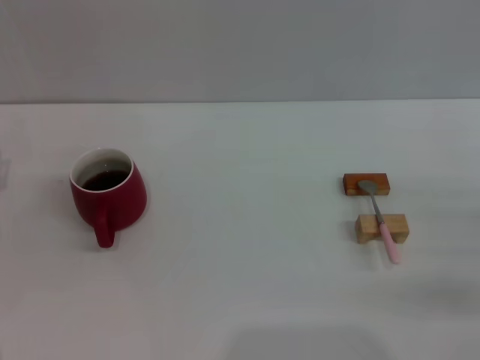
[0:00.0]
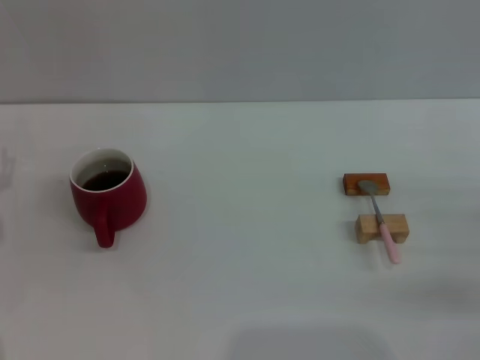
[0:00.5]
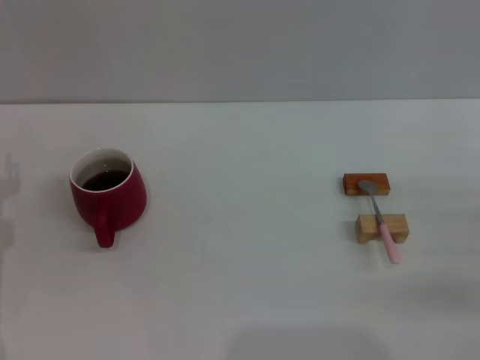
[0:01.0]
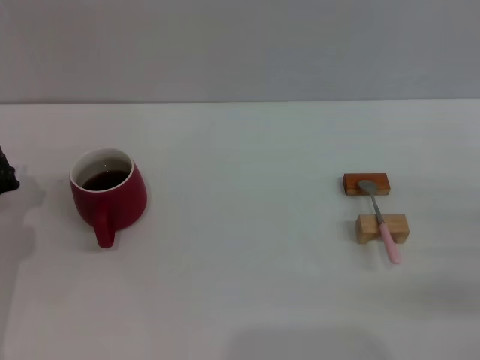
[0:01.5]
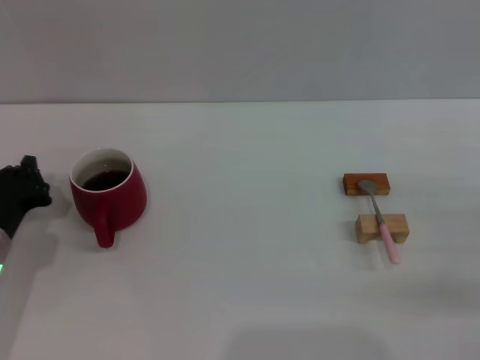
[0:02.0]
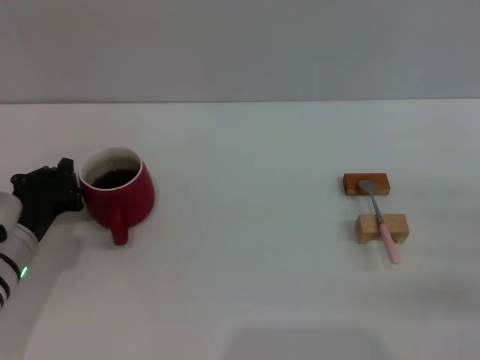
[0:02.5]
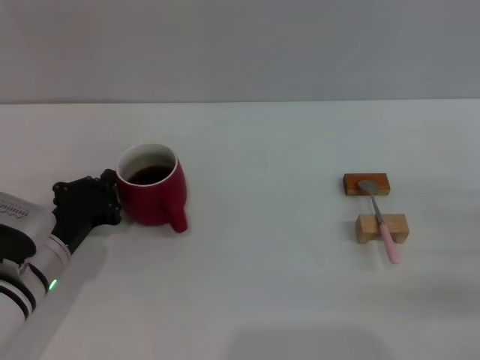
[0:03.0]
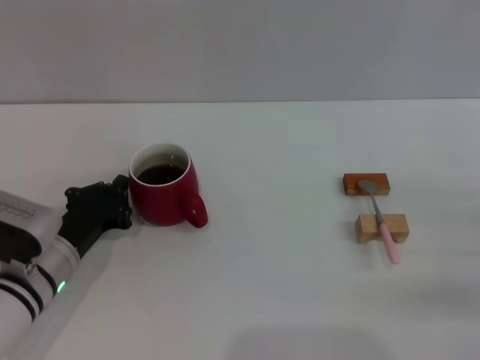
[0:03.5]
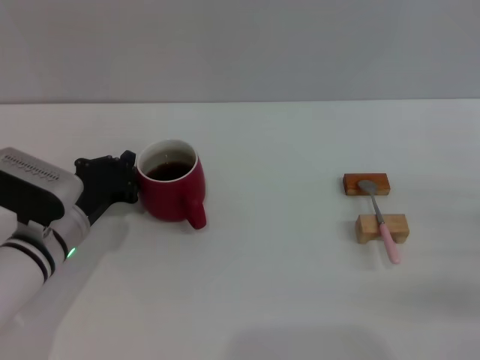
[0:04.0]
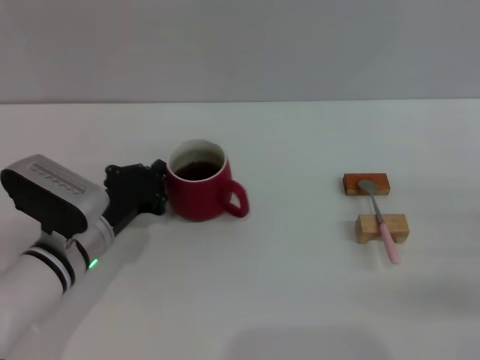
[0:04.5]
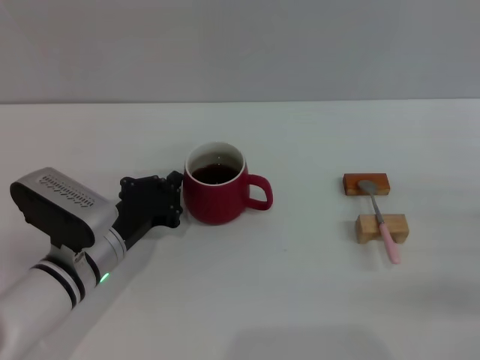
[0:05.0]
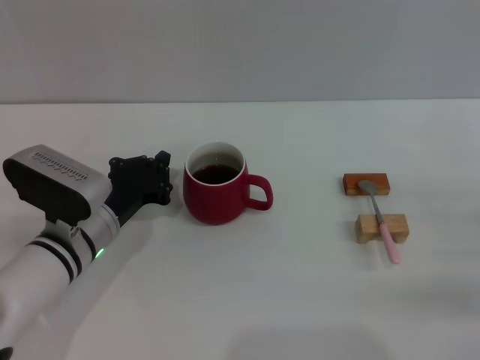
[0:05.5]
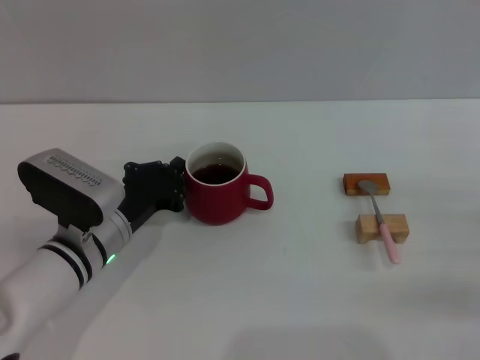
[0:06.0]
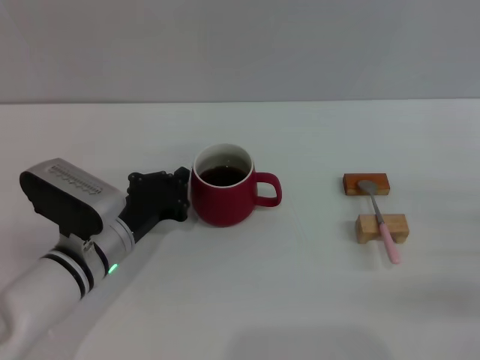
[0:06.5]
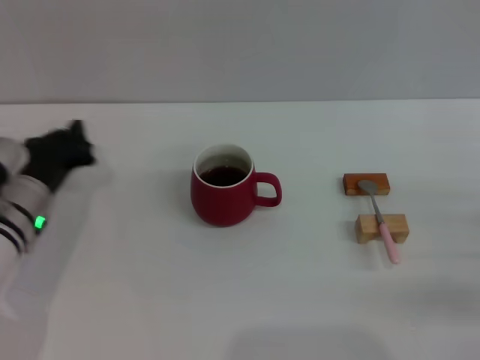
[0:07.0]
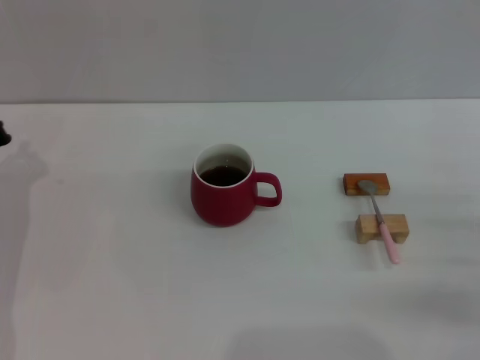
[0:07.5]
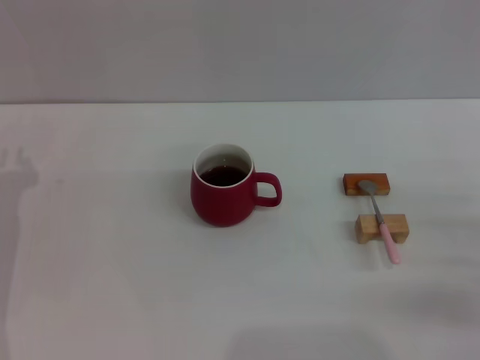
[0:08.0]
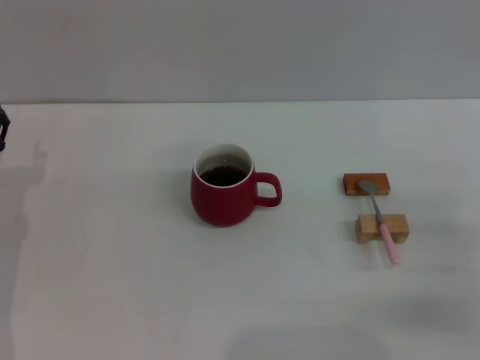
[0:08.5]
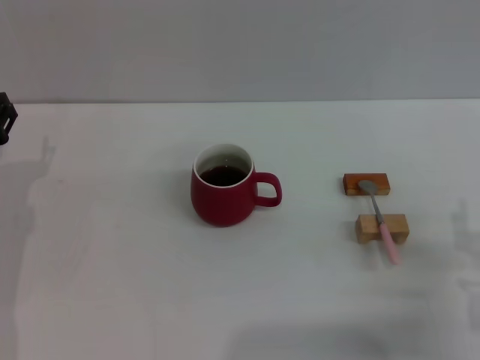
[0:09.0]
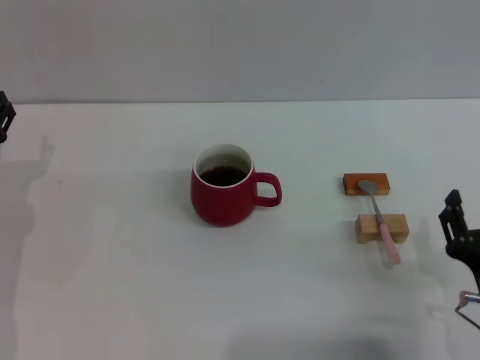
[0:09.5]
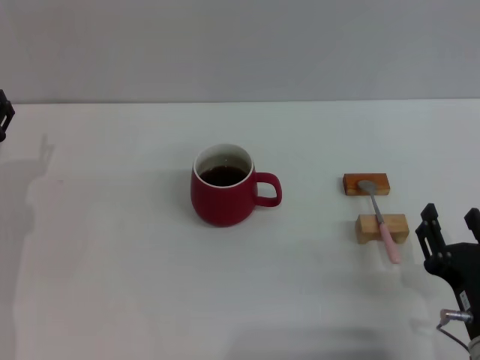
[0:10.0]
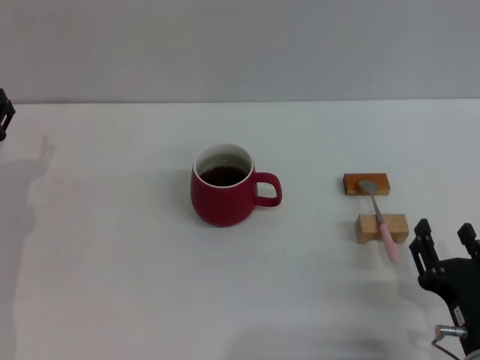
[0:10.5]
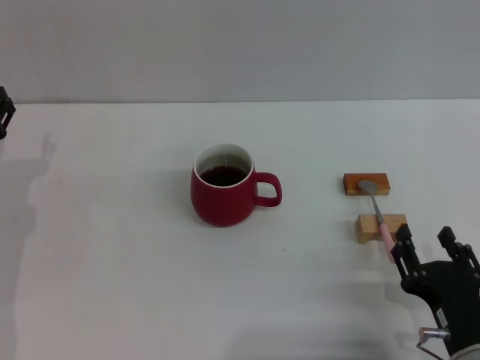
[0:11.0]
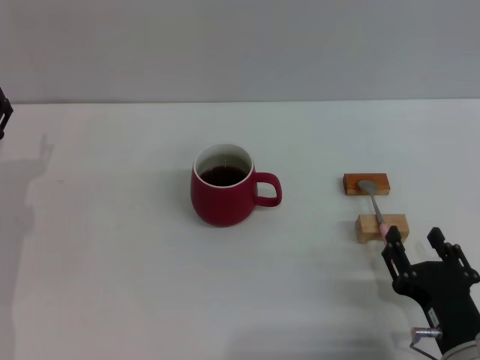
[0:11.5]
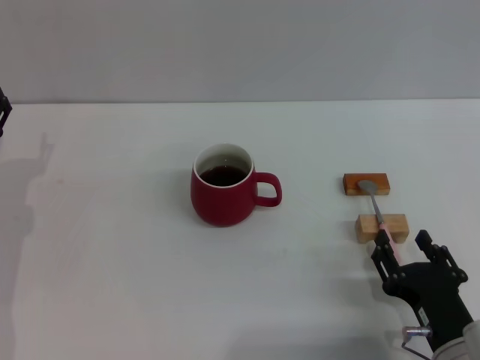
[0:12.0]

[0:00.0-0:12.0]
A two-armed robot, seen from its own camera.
Task of the whole recording: Move the red cup to the center, lift the pink spoon, stir it three times in the cup, and put the spoon into the cup.
Step, 0:00.0 to 0:06.5: Move the cup with coffee to the center of view with the left gripper.
0:00.0 to 0:02.0: The left gripper shifts by approximately 5 cm, and closes.
0:02.0 to 0:04.0: The left gripper heads to the right, covering some 5 cm.
0:04.0 to 0:06.0: The grippers make only small movements.
0:06.0 to 0:08.0: The left gripper moves to the left, approximately 15 cm.
0:08.0 to 0:10.0: The right gripper travels to the left and backward by about 15 cm.
0:10.0 to 0:12.0: The grippers stay close to where they were, moving slightly.

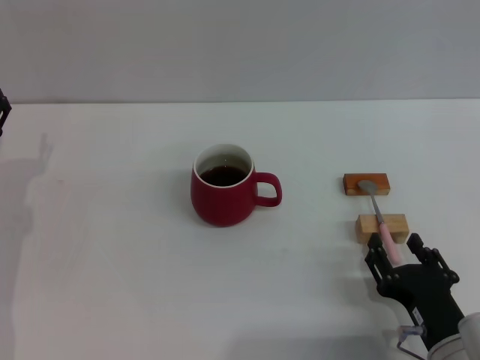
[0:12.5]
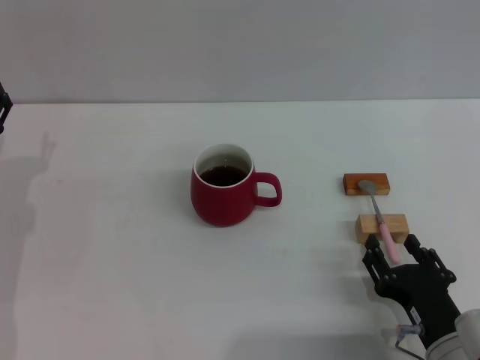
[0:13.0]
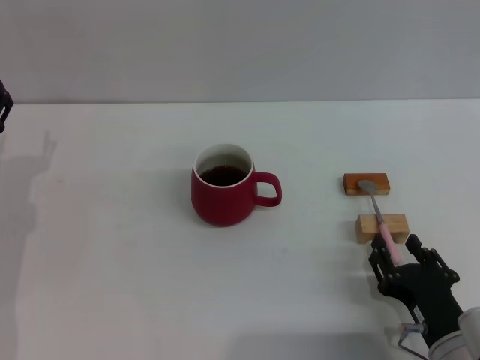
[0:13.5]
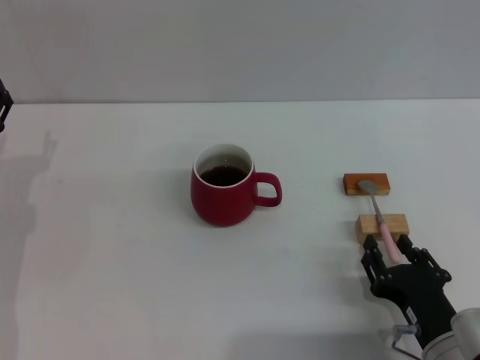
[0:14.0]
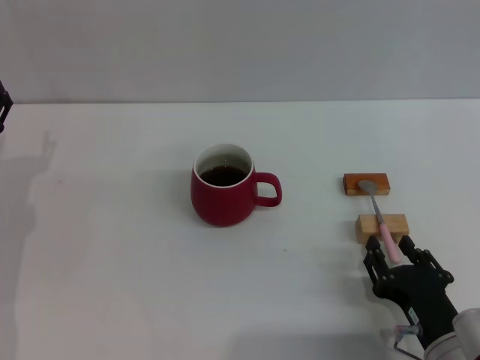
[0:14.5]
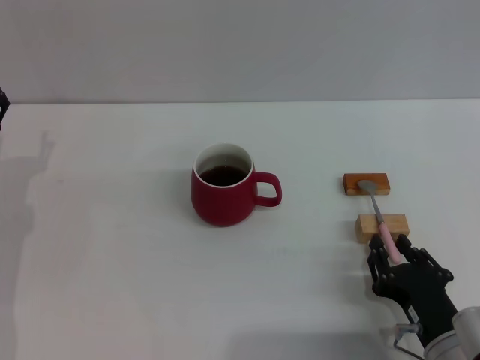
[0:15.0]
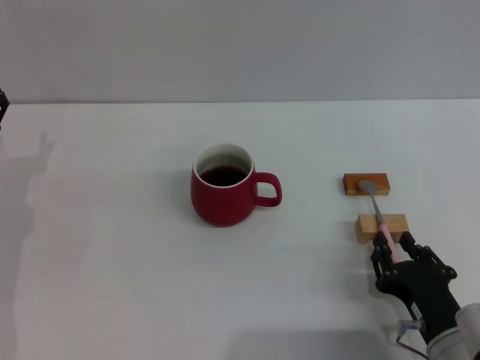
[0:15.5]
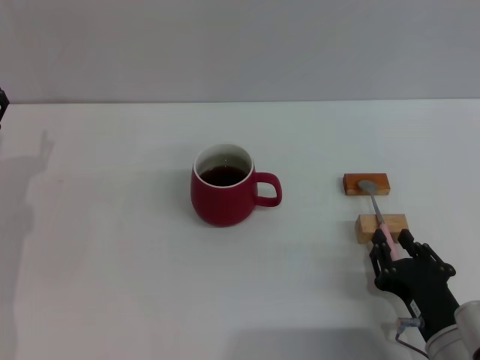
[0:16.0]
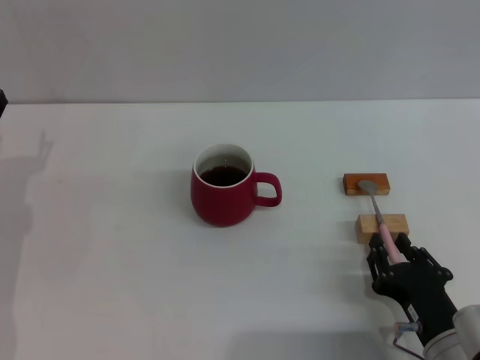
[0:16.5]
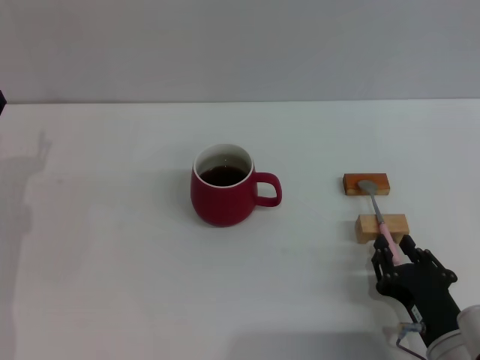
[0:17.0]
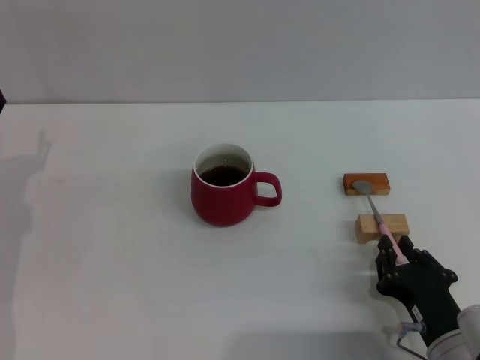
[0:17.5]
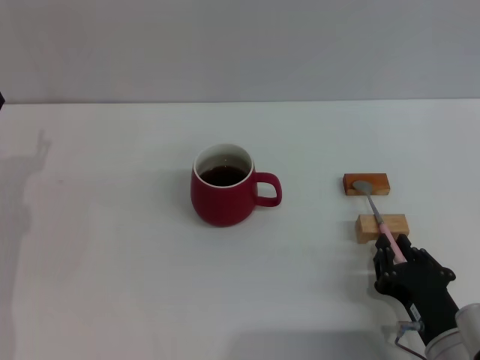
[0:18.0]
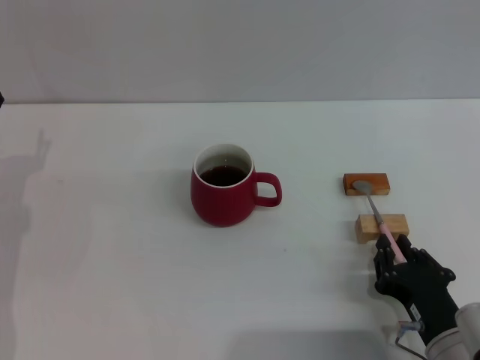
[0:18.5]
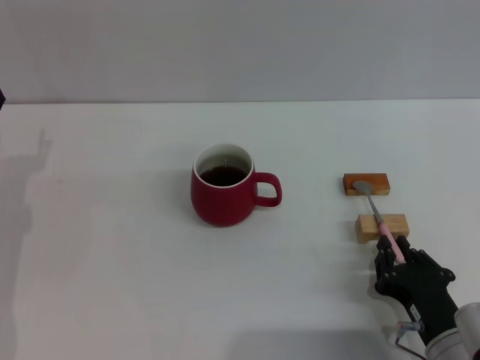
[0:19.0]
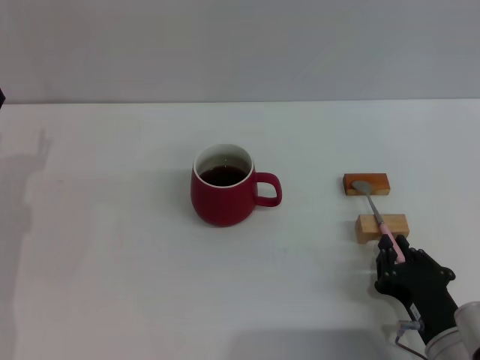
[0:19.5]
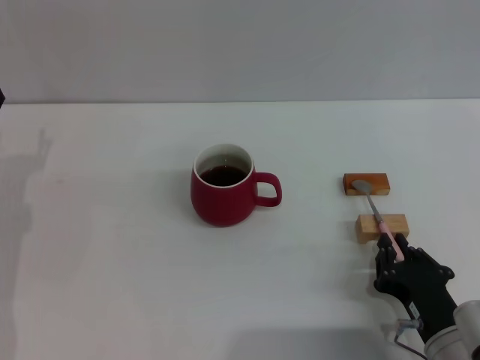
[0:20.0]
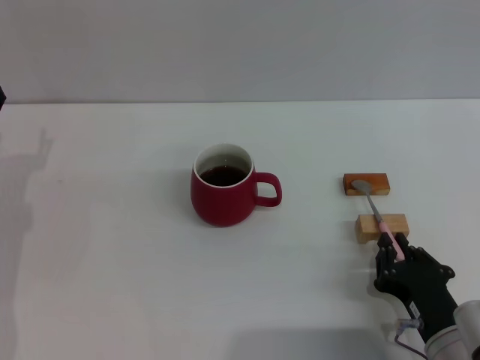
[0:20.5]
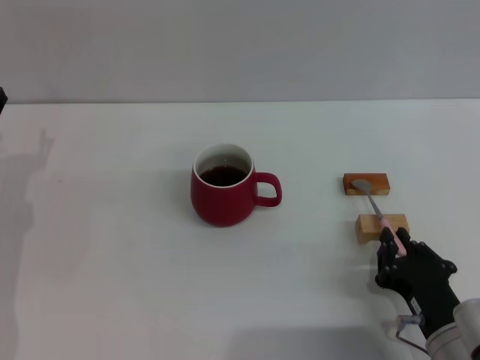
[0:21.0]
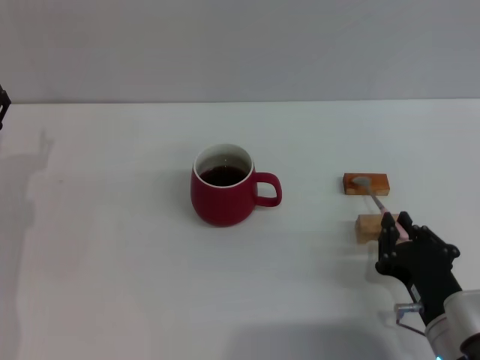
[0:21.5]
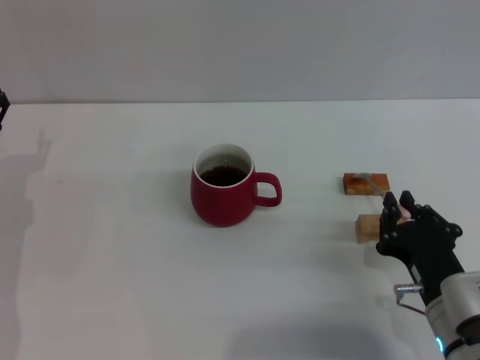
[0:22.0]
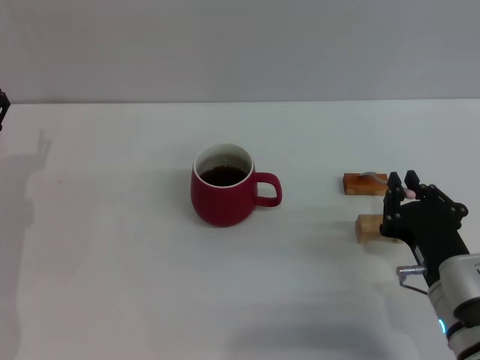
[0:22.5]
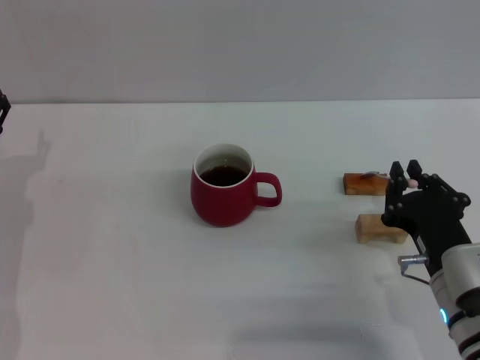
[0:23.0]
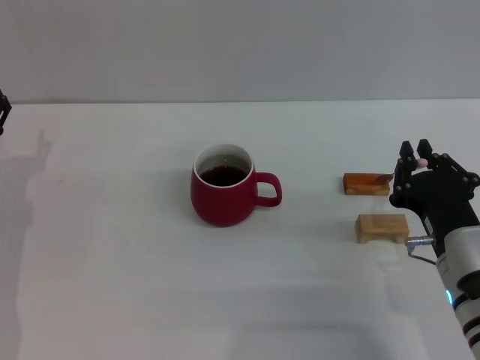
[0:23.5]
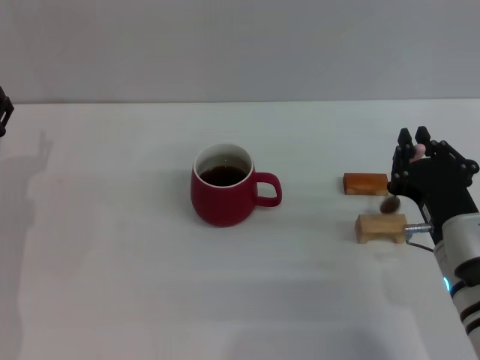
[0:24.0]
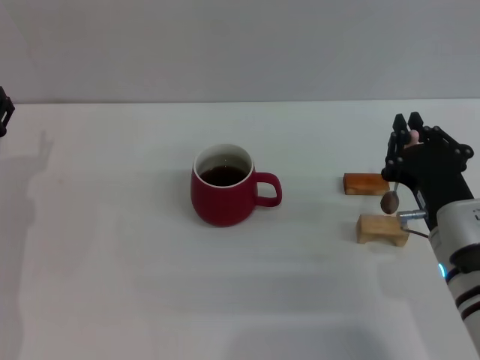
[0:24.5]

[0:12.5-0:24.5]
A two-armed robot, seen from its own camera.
Task of the whole recording: Move the red cup to the center, lift the pink spoon, stir it three times in the cup, and put the spoon into the cup.
0:12.5 to 0:20.5: Neither gripper changes place.
0:20.5 to 0:22.5: The right gripper changes place by approximately 5 cm.
0:22.5 to 0:24.5: The grippers move only a little.

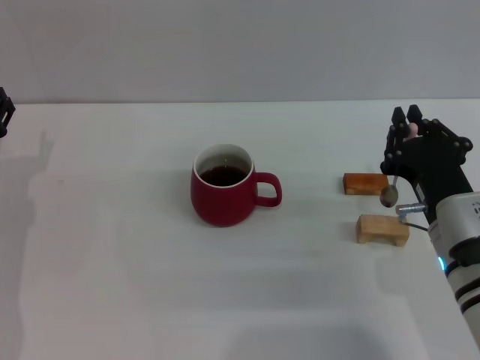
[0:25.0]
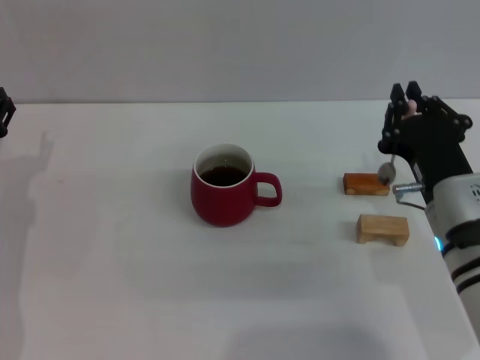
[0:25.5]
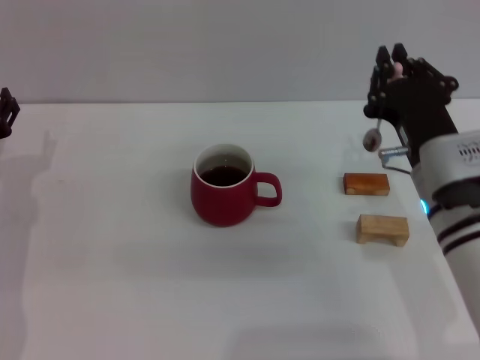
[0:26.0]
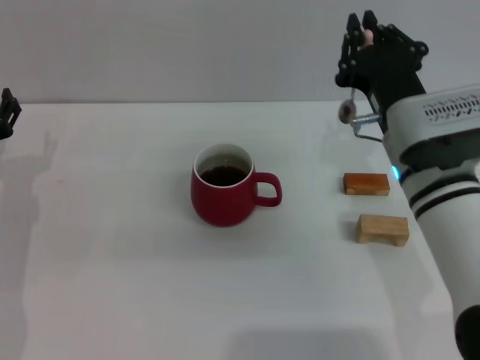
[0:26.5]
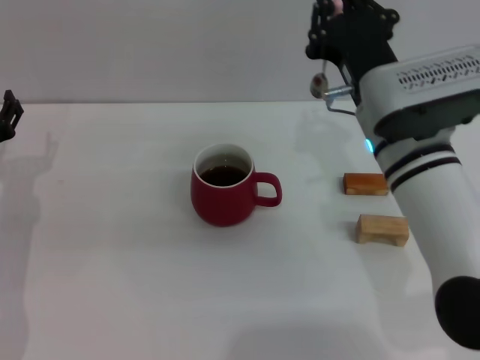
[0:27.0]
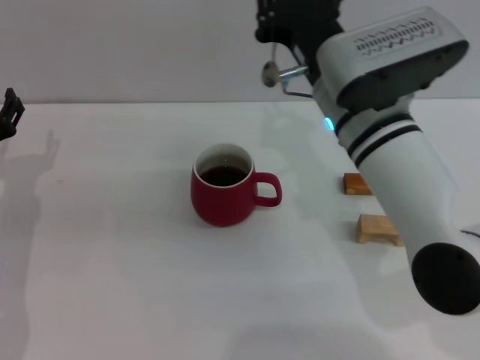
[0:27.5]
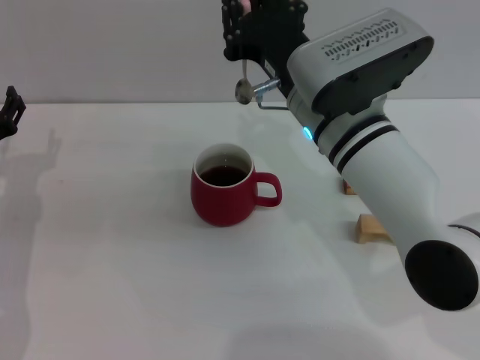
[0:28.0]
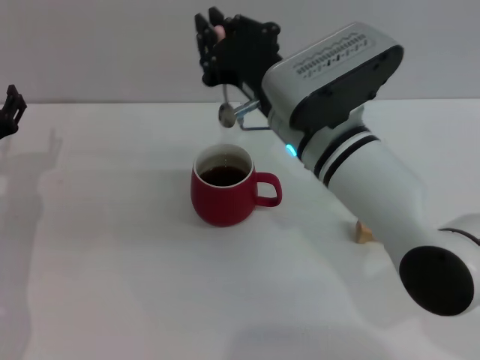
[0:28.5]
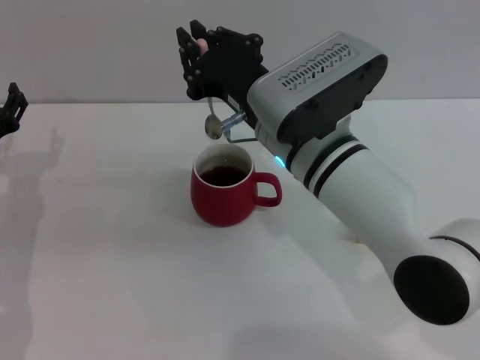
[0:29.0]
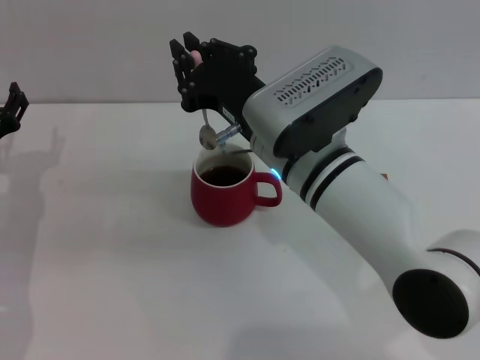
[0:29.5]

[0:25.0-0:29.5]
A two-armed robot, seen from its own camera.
Task of the whole recording: Move the red cup to the center, lift the pink spoon, stir it three times in the cup, and put the spoon into the cup.
0:25.0 to 0:27.0: The right gripper heads forward, upward and to the left, covering some 10 cm.
0:27.0 to 0:29.5: The right gripper shifts some 5 cm to the left.
